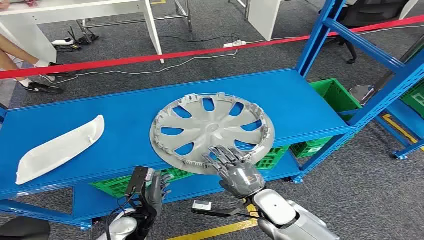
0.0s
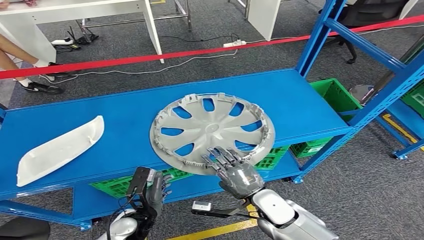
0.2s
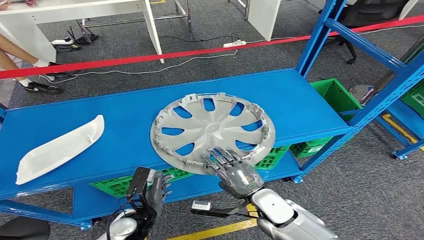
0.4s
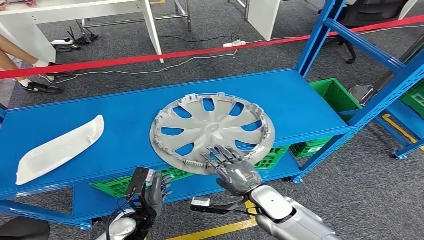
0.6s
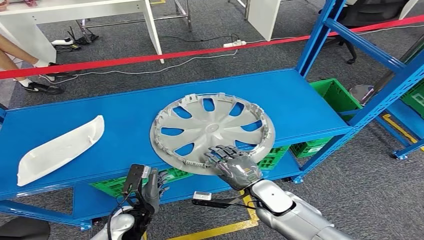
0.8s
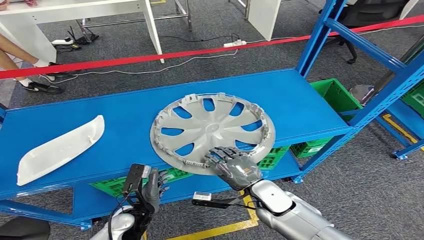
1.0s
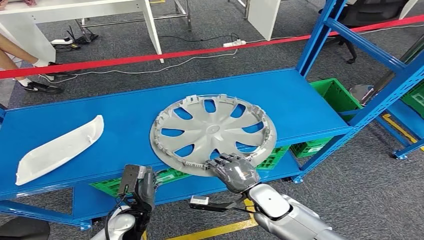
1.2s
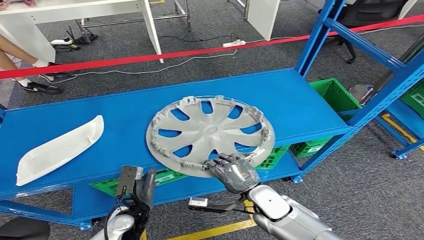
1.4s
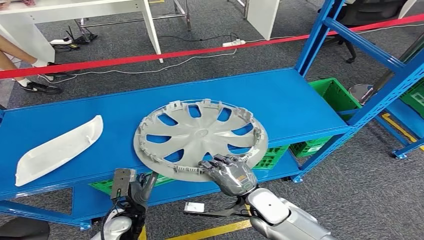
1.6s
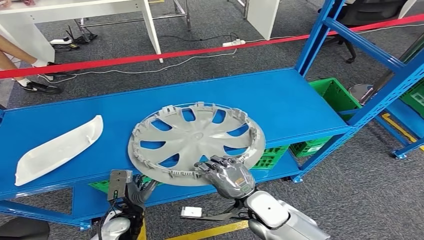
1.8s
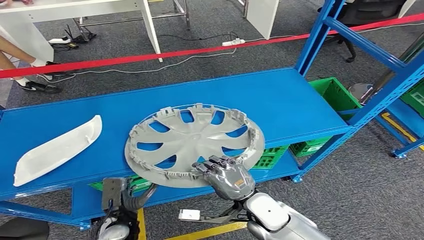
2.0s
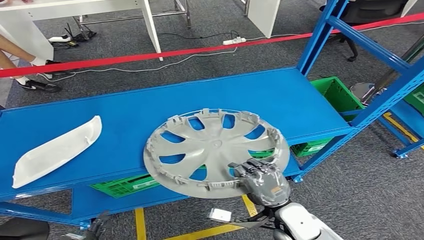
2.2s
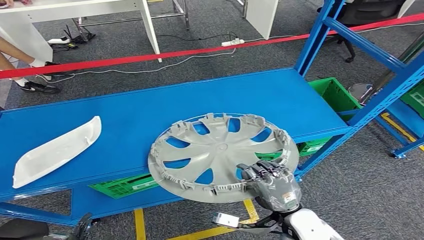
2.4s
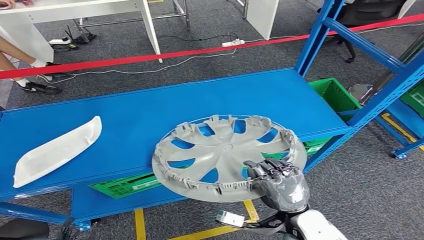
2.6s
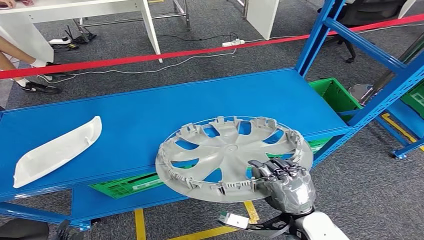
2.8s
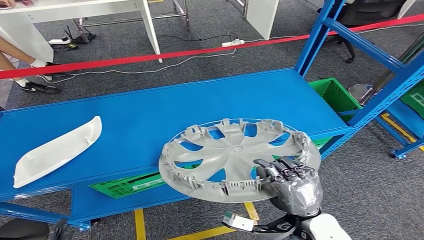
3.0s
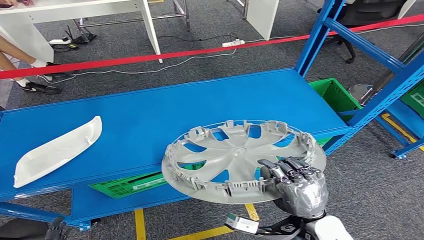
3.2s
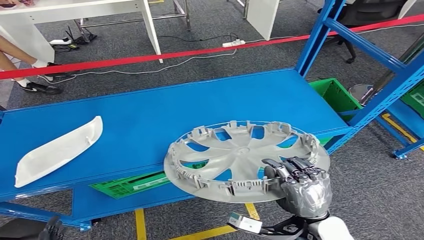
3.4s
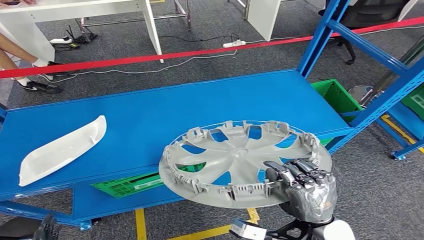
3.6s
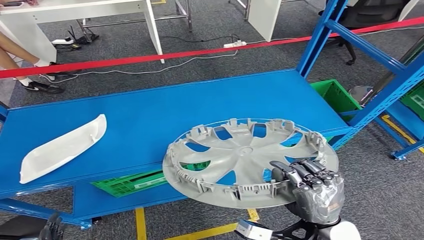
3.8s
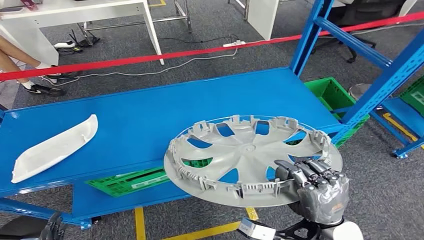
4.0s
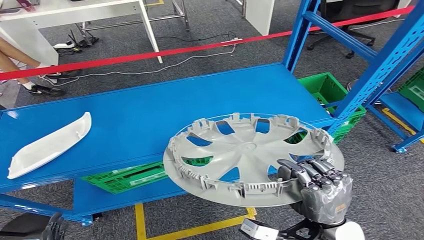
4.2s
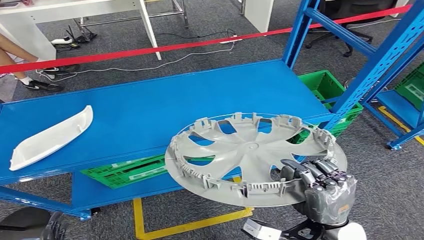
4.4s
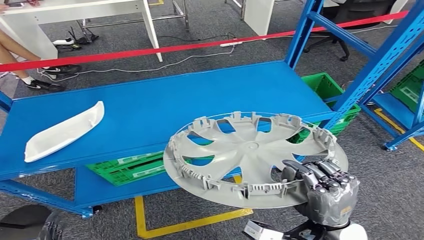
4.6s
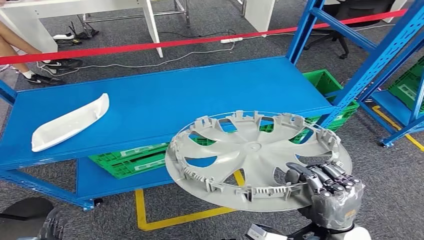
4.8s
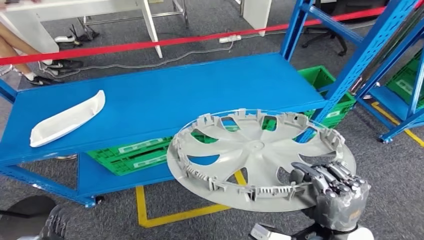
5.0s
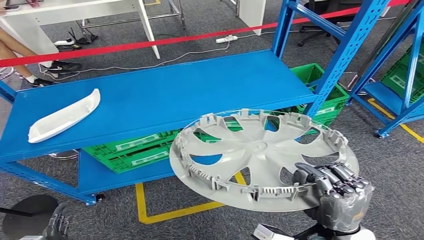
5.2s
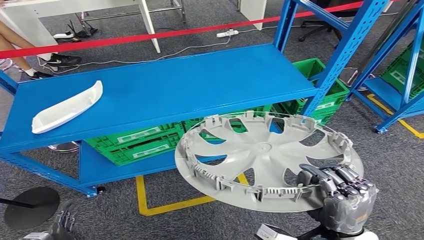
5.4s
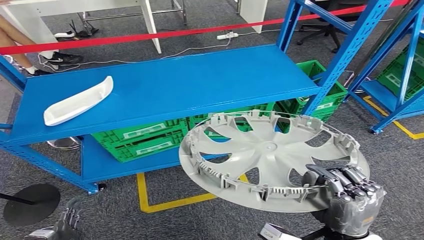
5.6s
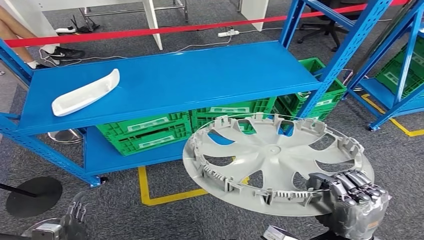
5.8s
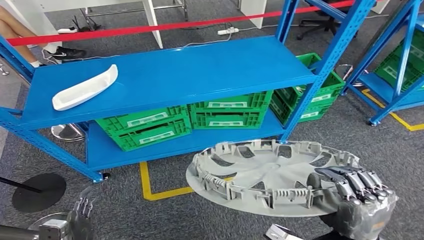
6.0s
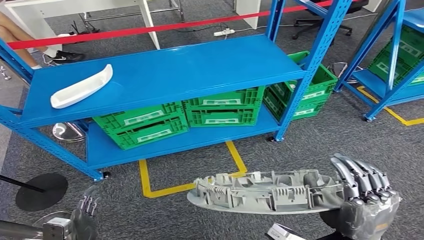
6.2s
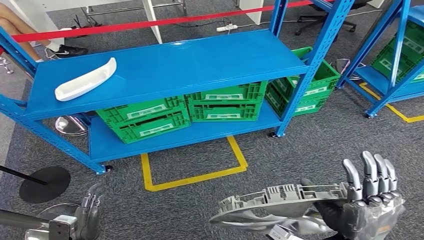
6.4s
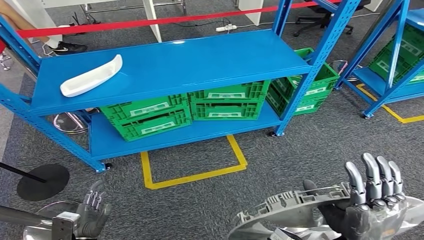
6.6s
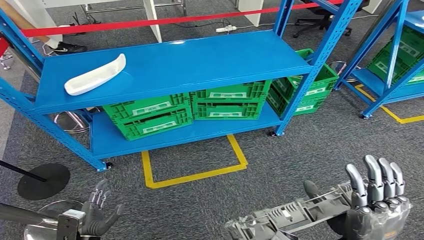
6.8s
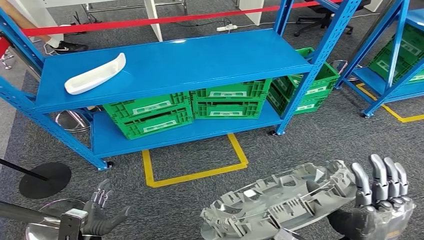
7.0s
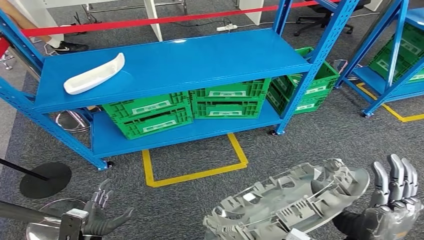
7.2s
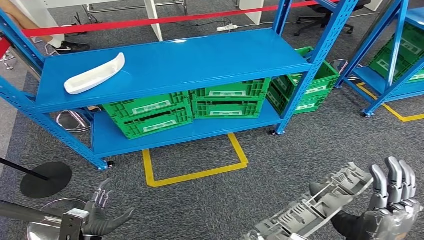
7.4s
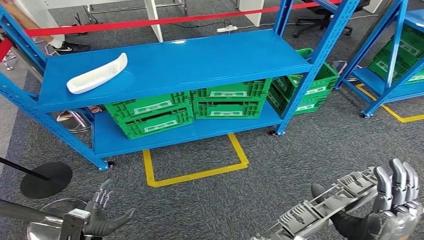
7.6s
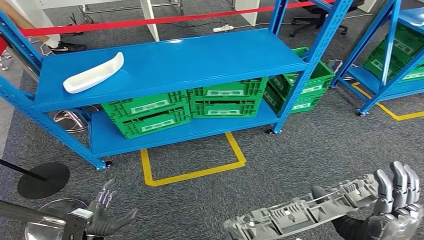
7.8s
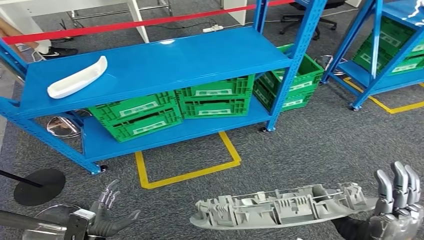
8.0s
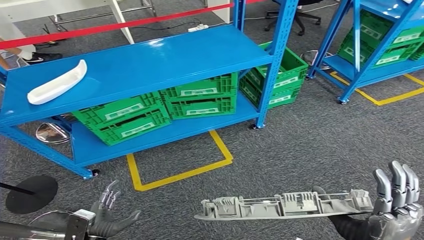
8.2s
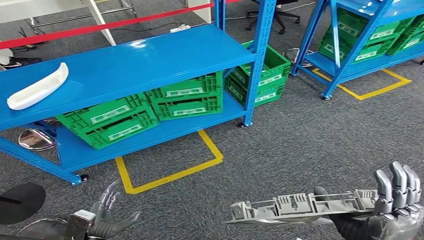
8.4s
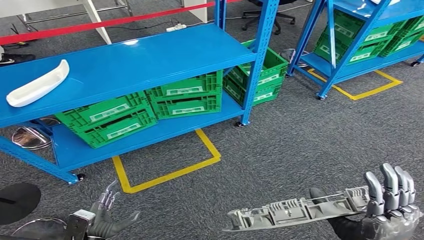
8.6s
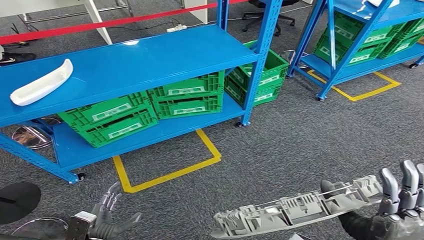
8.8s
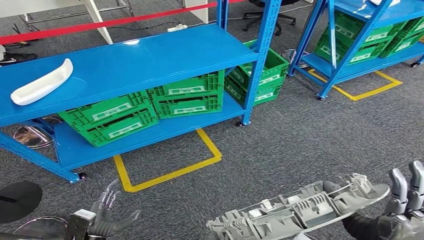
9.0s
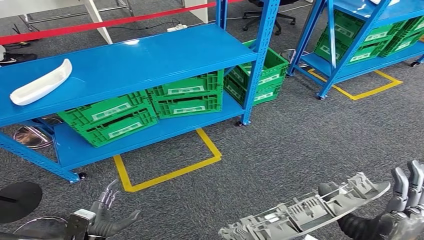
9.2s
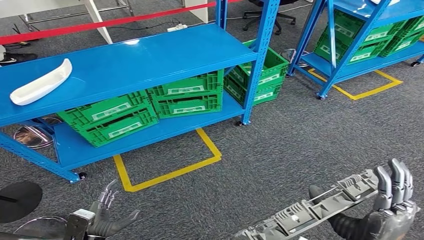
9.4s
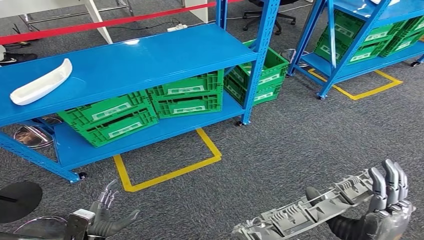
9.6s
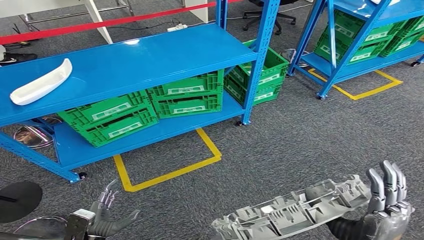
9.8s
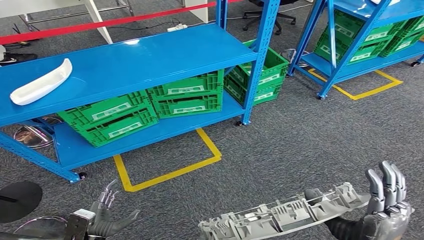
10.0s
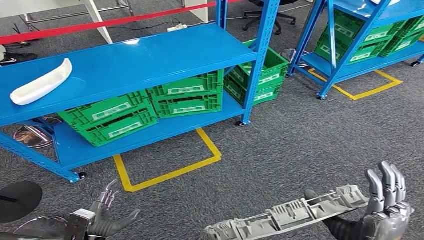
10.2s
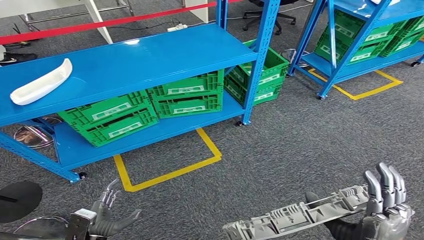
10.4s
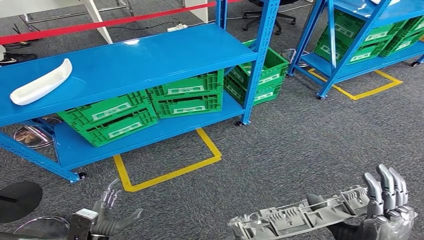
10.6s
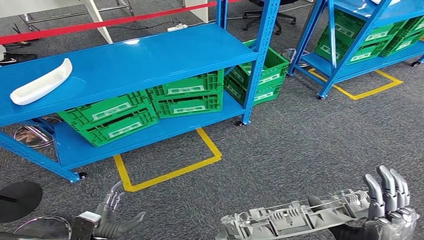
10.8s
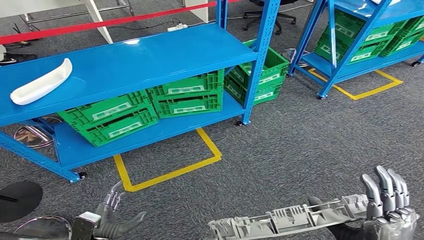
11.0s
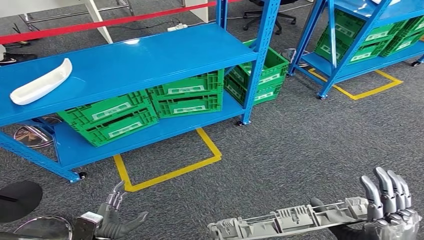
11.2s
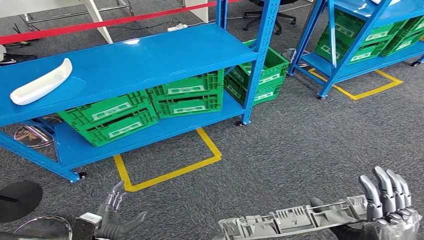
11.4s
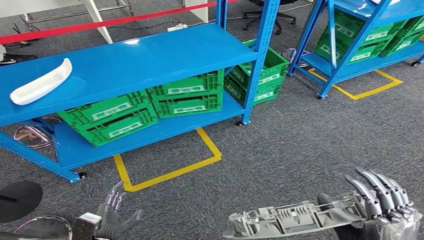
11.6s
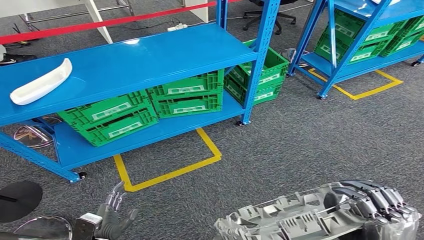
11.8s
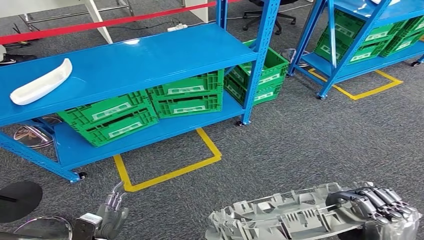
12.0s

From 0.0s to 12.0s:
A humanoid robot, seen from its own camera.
Step, from 0.0s to 5.2s: Pick up the small component from the shelf.
From 1.6s to 3.0s: The right hand is displaced upward, backward and to the right by roughly 10 cm; the left hand is displaced backward, to the left and downward by roughly 25 cm.
From 9.0s to 12.0s: The hands stay close to where they were, moving slightly.

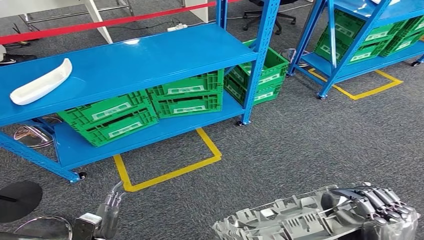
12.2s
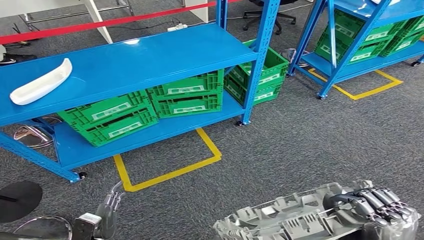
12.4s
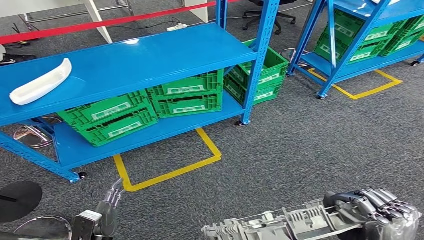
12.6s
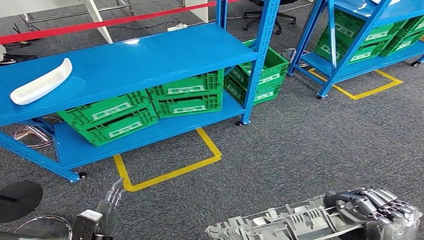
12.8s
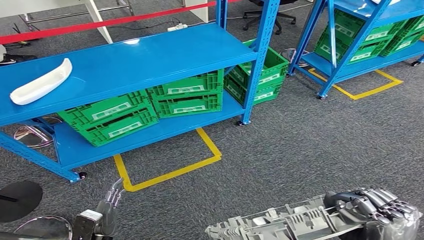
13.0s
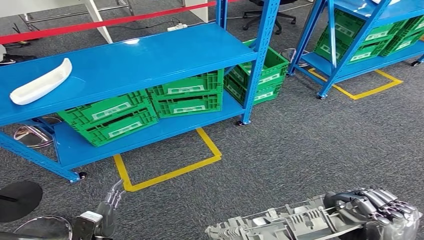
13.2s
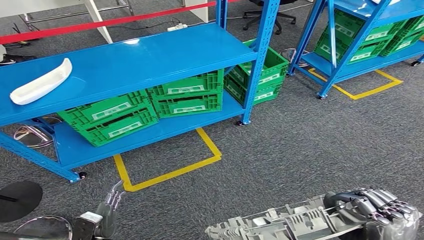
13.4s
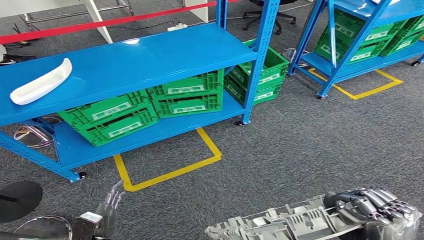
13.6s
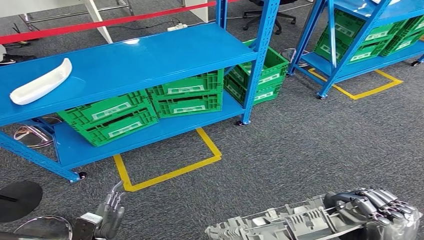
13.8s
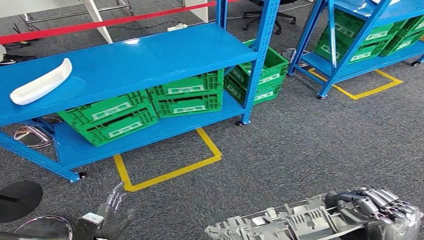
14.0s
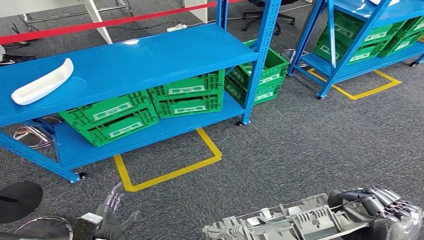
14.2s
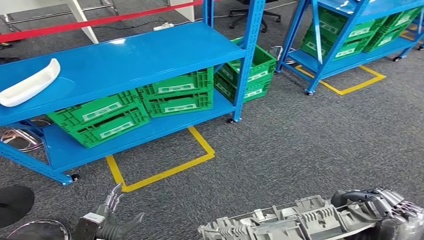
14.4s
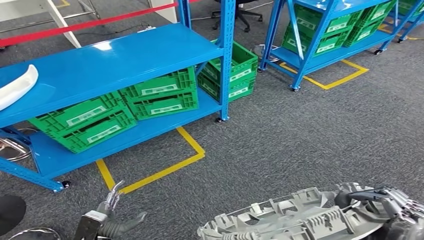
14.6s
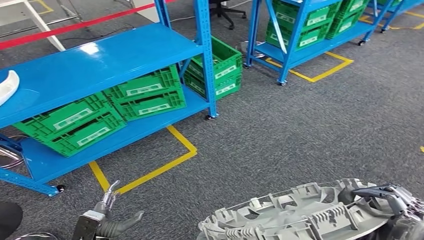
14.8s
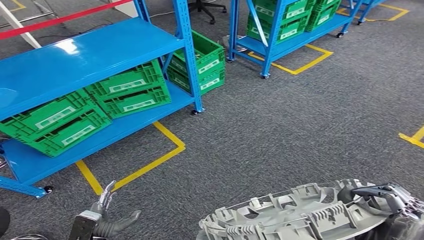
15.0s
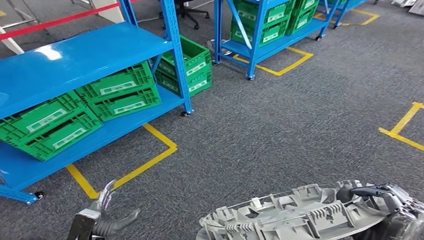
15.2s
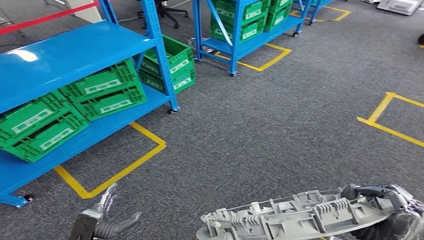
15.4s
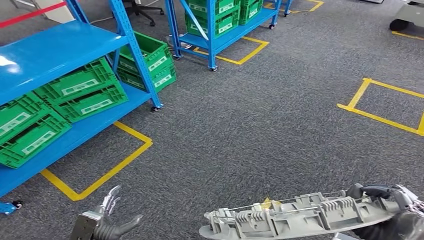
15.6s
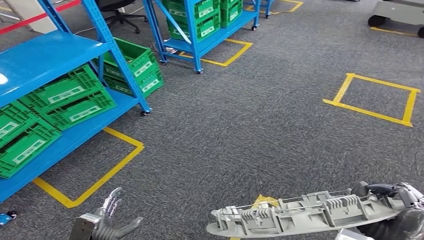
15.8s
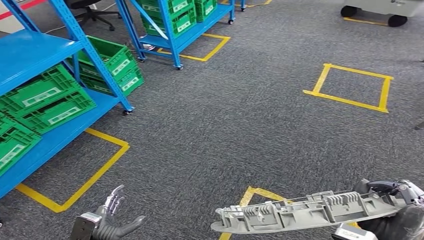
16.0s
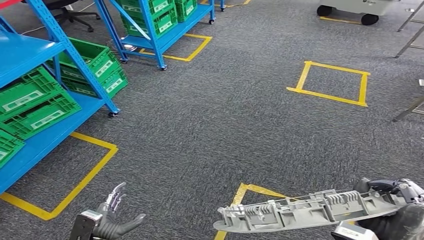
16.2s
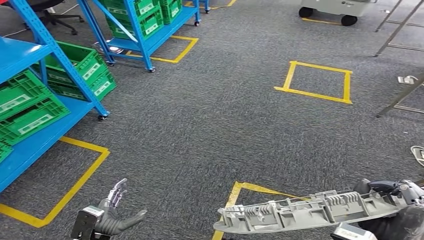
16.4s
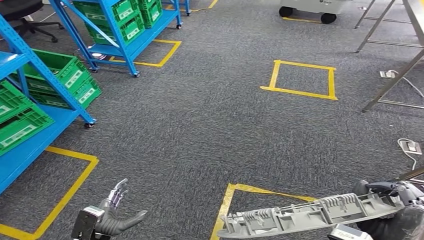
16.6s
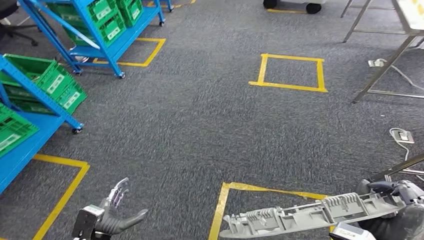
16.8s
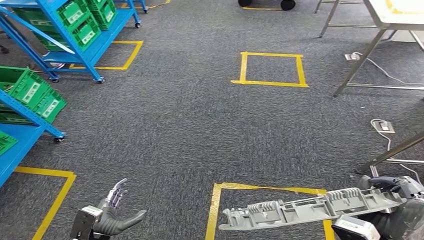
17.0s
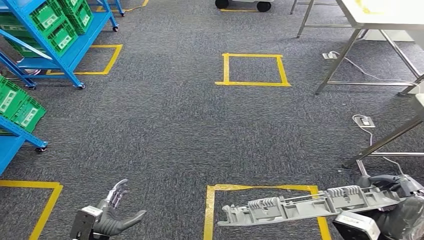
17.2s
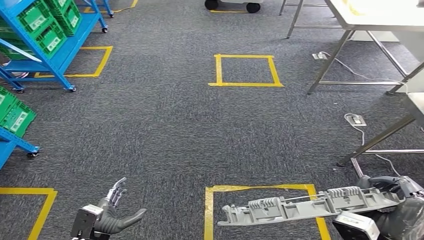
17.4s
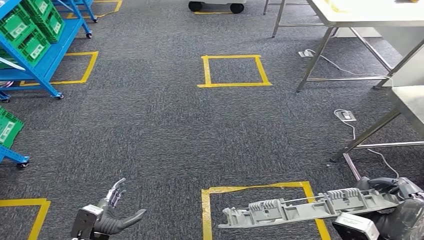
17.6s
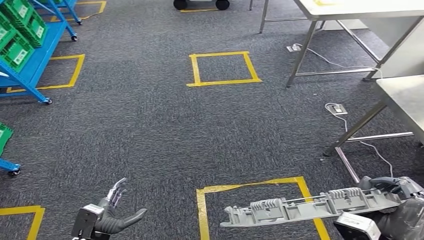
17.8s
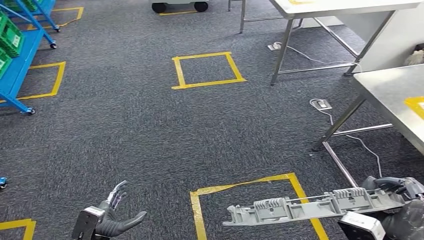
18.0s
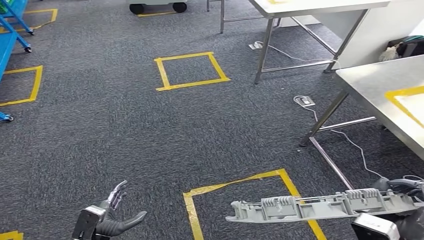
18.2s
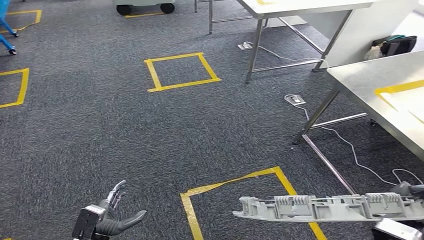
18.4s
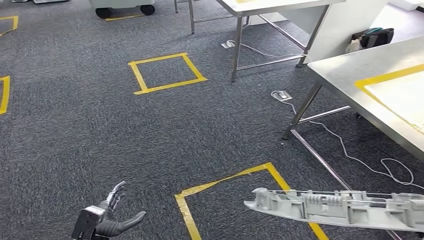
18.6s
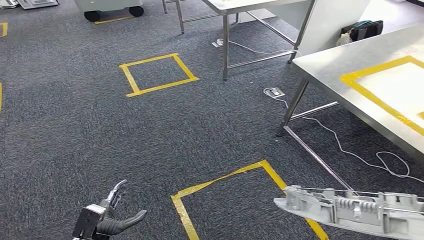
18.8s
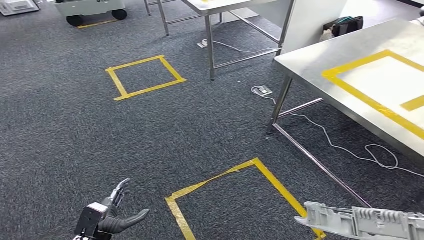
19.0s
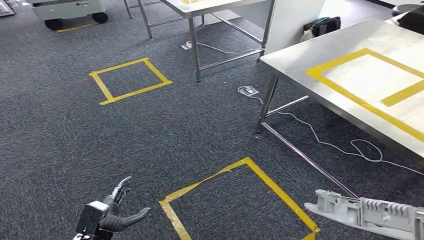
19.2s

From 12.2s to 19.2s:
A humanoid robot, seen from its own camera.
From 12.2s to 13.6s: Both hands stay put.
